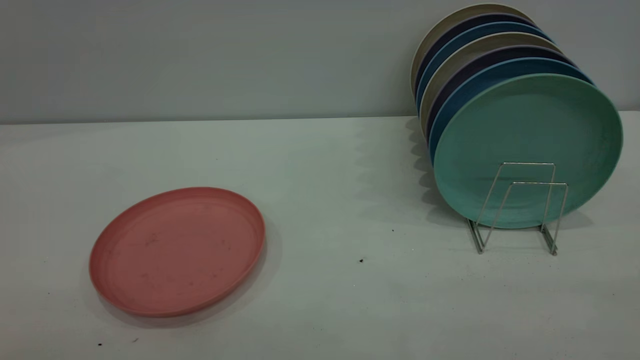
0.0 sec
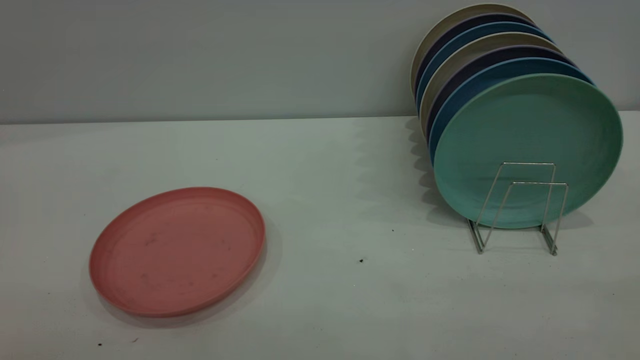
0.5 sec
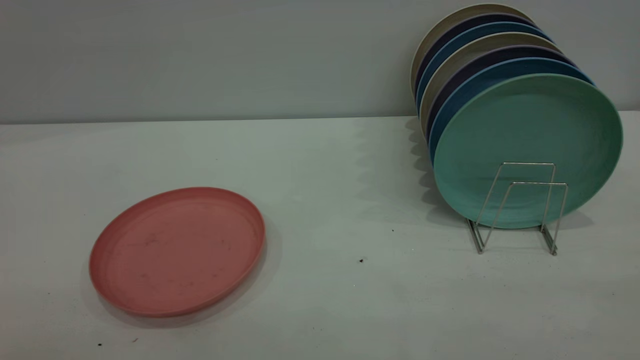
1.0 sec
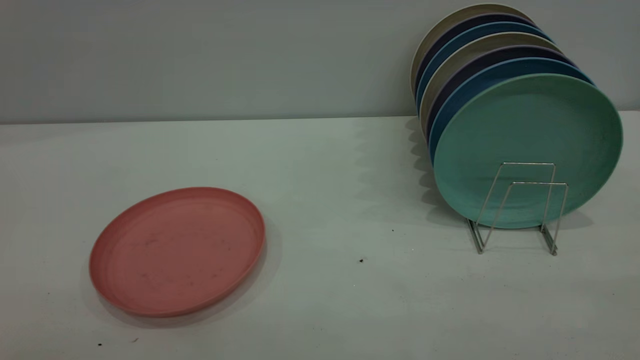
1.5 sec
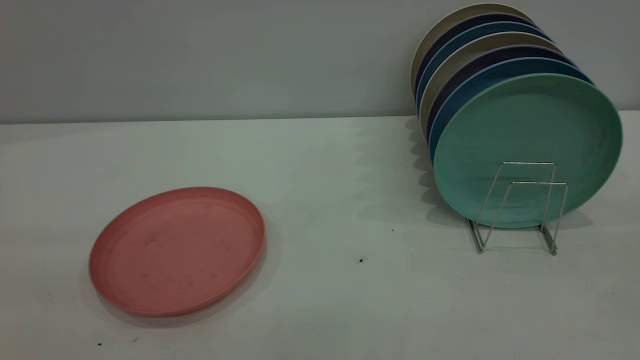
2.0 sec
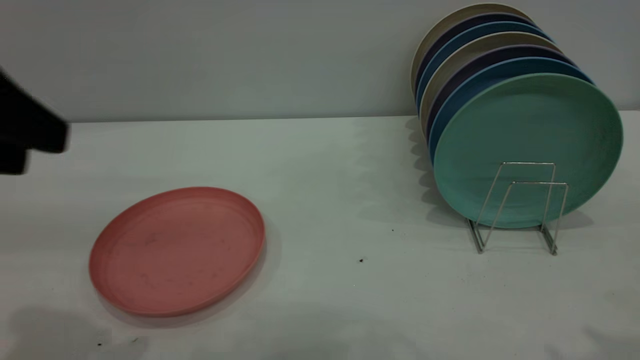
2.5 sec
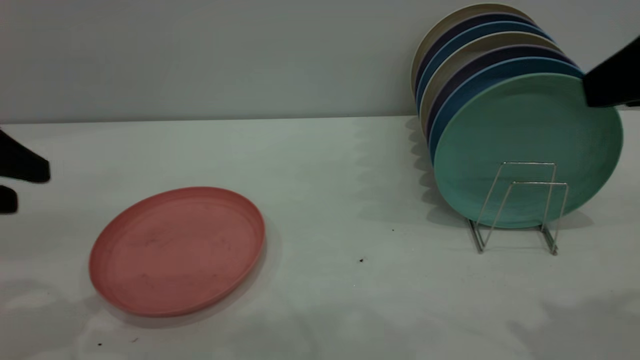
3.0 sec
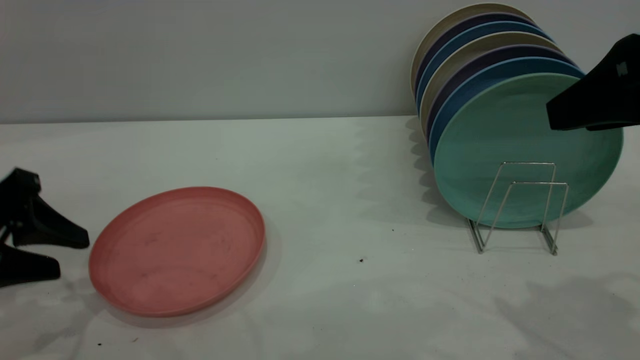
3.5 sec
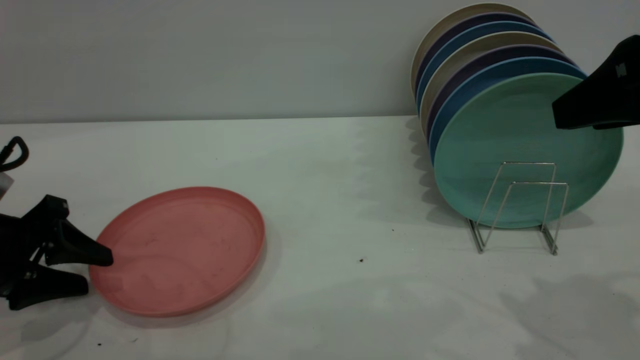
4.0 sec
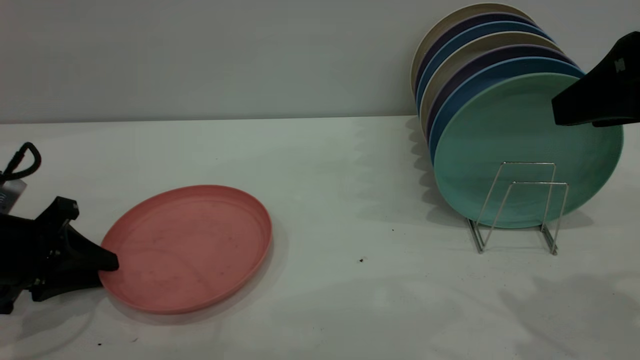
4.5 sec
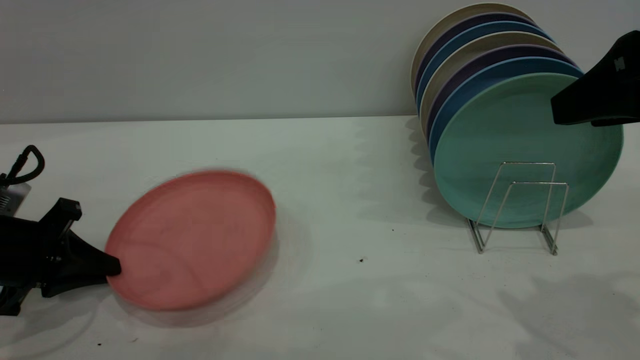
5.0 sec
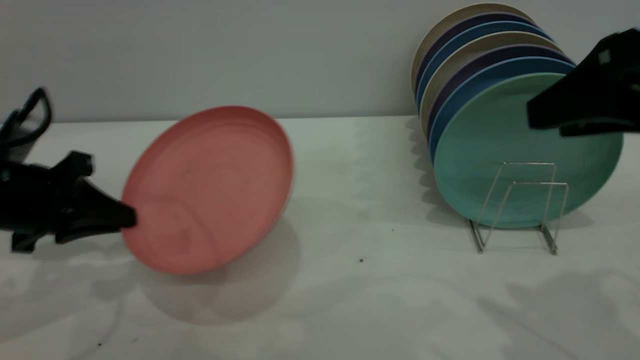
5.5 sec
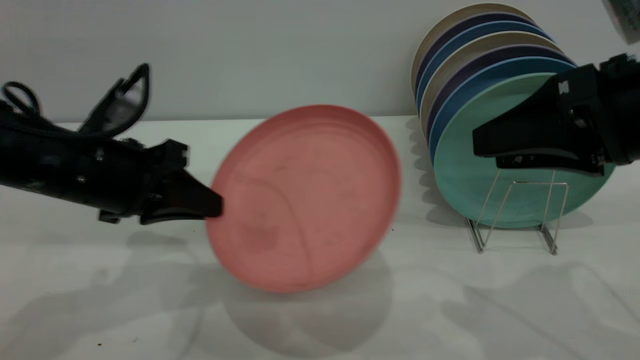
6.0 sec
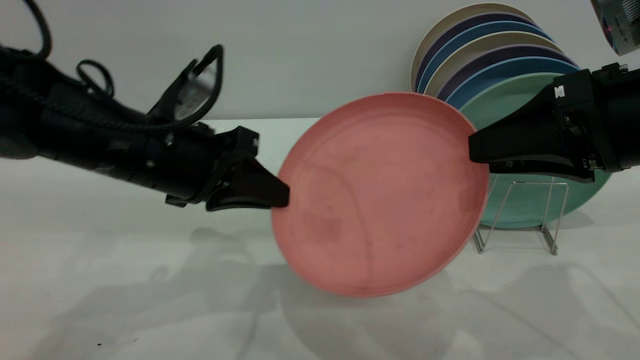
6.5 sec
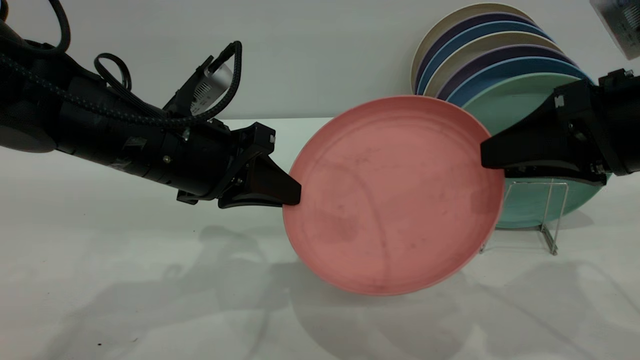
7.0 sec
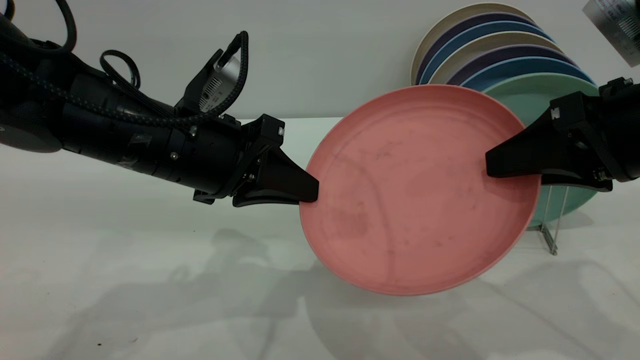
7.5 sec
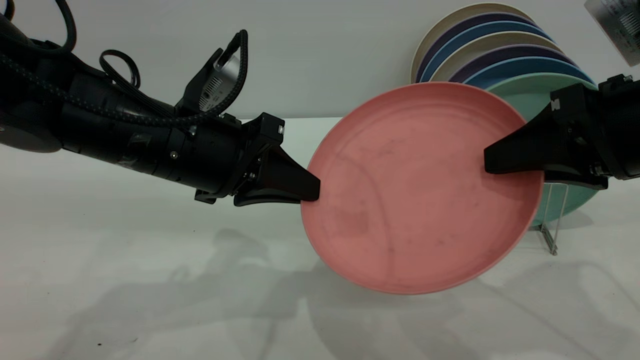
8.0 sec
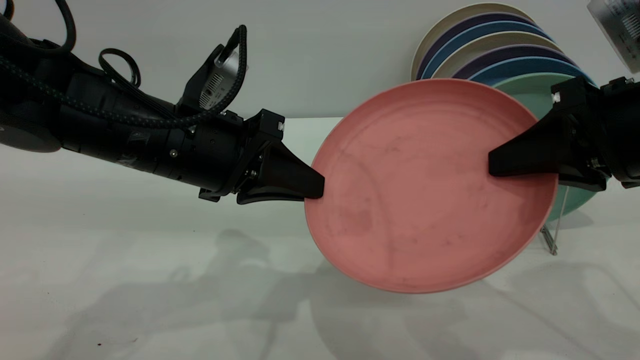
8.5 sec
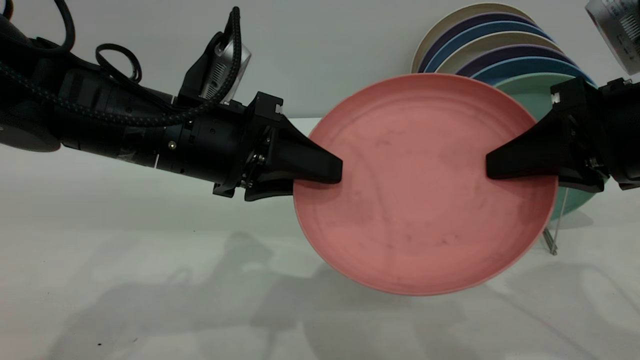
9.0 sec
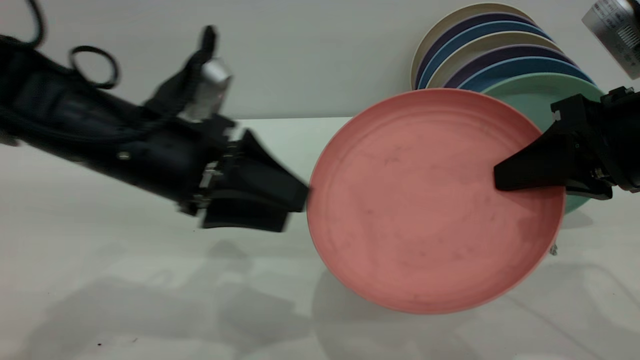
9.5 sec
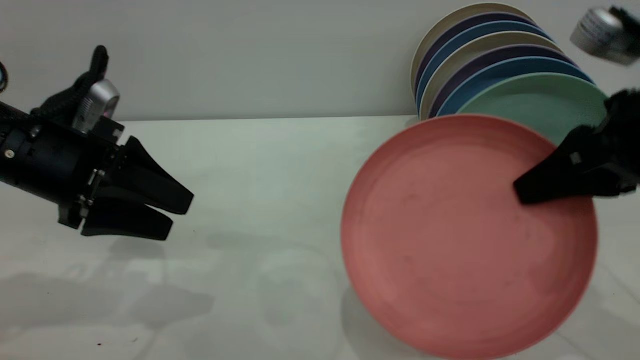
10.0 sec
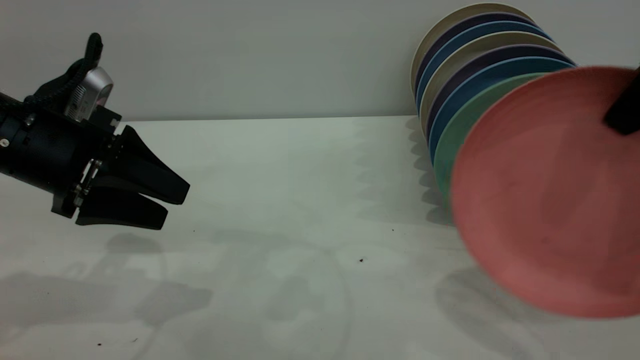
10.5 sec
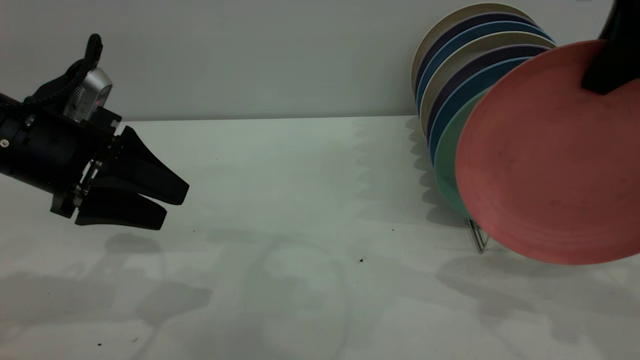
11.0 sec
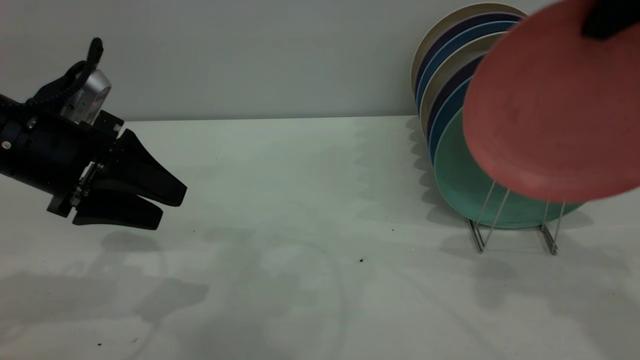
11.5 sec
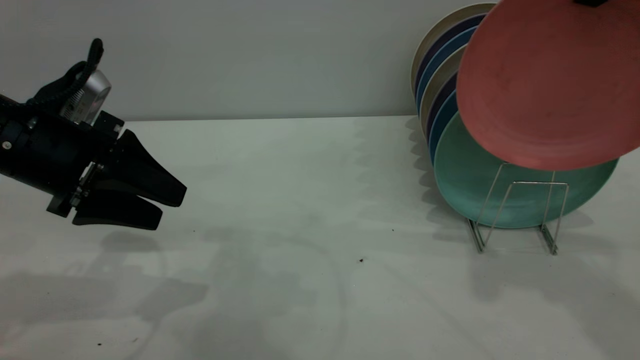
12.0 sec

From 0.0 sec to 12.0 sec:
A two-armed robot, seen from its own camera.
Task of the whole recording: the left gripper grasp the pink plate, the left gripper pass the pink plate to the right gripper, and the right gripper place the pink plate on the plate rack.
Step, from 0.0 sec to 5.0 sec: Pick up the plate with the left gripper.
Step, from 5.5 sec to 9.5 sec: Pass the plate from the left gripper to the right gripper.
From 2.0 sec to 4.0 sec: The right gripper heads forward and downward, covering some 20 cm; the left gripper moves downward and forward, roughly 35 cm.
From 4.0 sec to 6.0 sec: The left gripper shifts approximately 15 cm to the right and upward, and closes its fingers. The right gripper moves downward, some 5 cm.
From 6.0 sec to 8.0 sec: The left gripper heads to the right, covering some 10 cm.
From 8.0 sec to 10.0 sec: The left gripper goes some 10 cm to the left, and opens its fingers. The right gripper closes up.
From 10.0 sec to 12.0 sec: The right gripper moves upward and forward, approximately 15 cm.

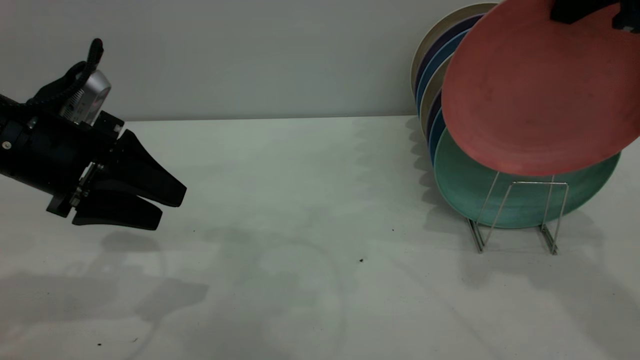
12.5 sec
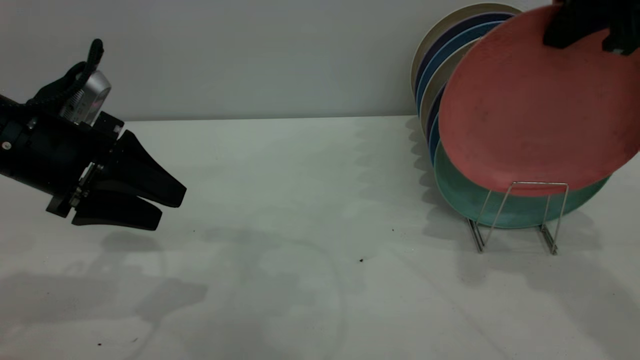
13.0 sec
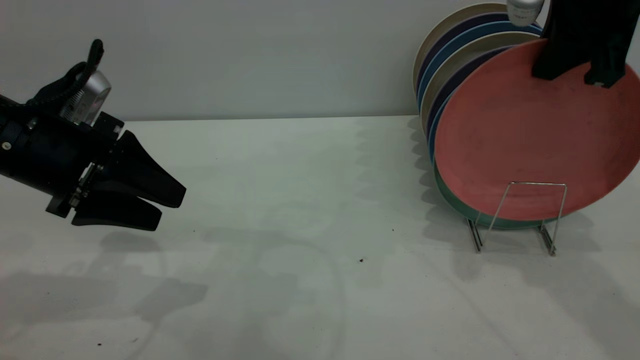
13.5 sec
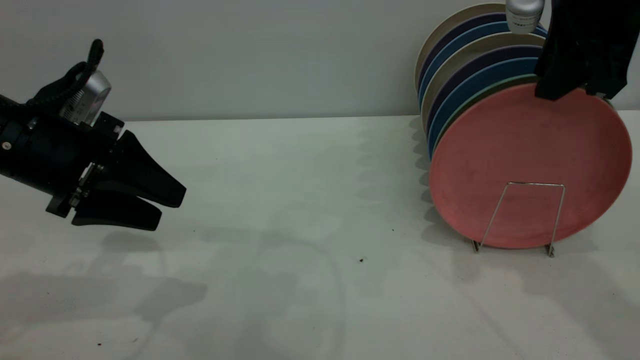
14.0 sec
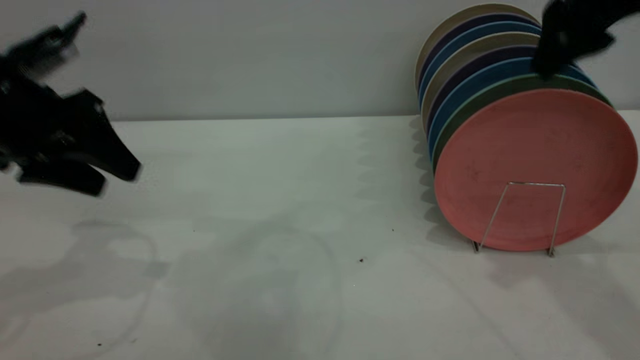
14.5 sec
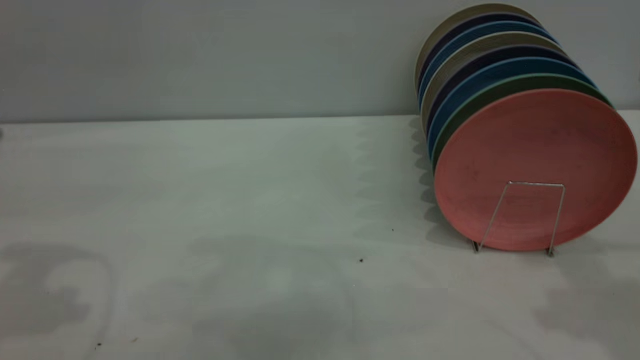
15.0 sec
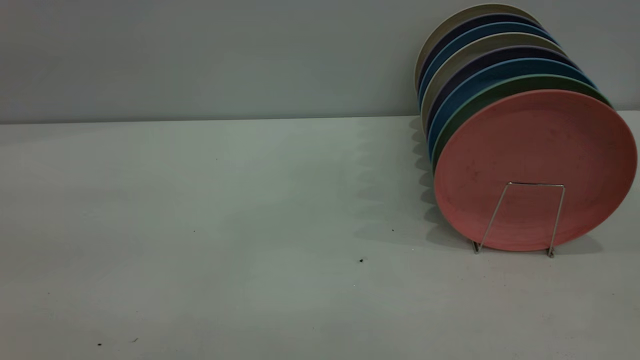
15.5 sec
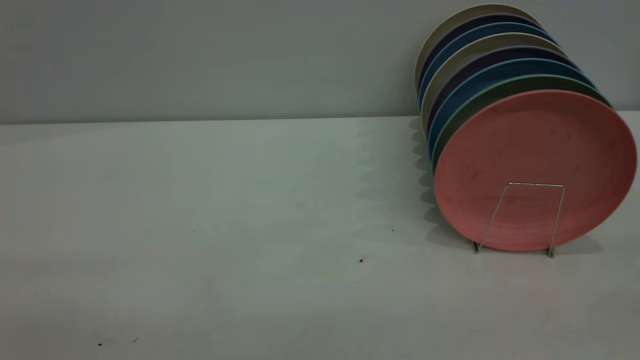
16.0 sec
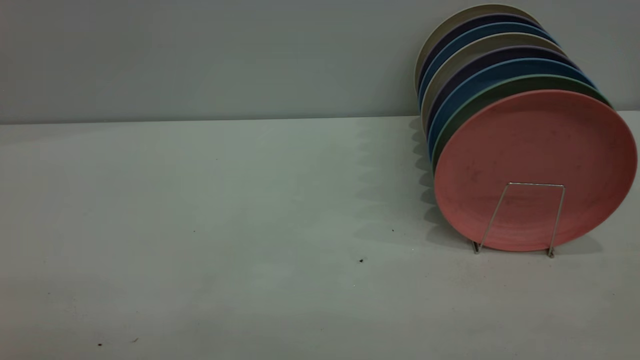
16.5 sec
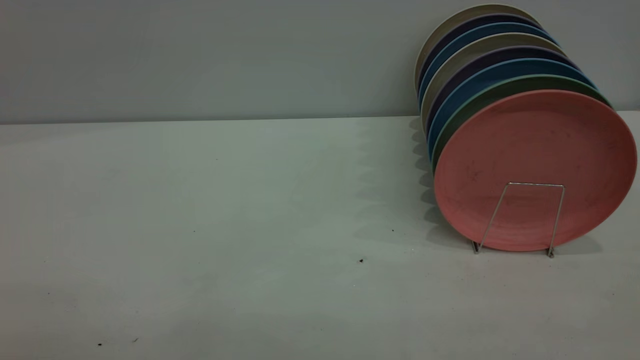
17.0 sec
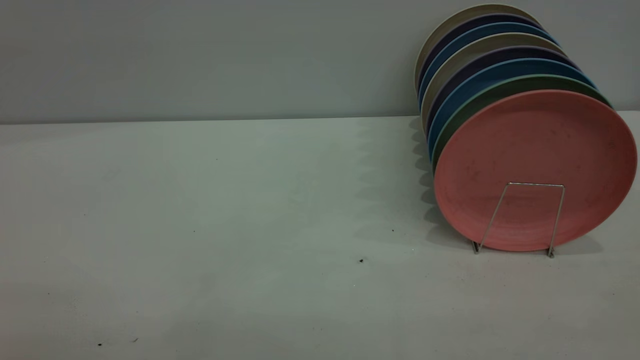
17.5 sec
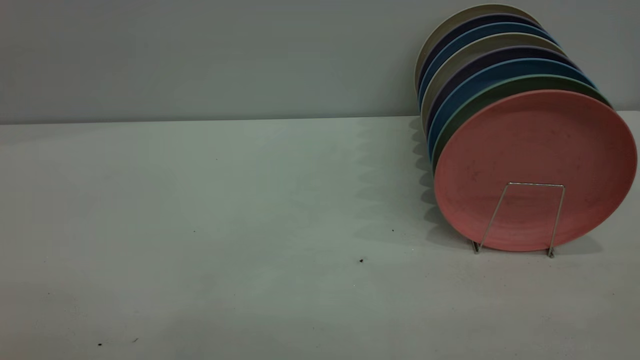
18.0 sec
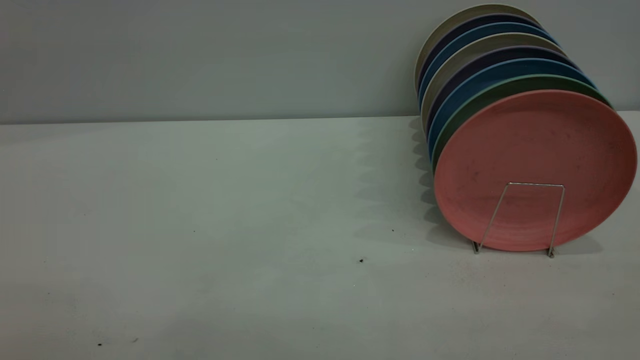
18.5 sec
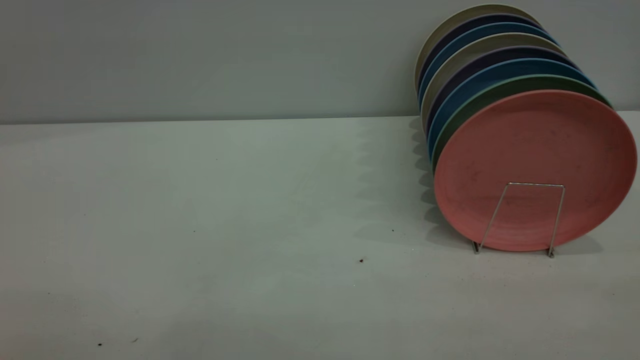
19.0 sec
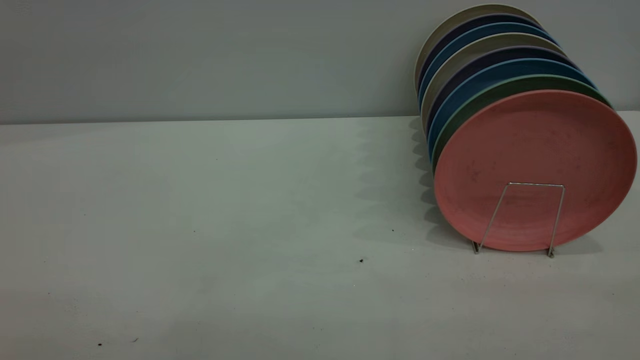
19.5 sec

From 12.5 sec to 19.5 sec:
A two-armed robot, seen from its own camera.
Task of the whole recording: the left gripper grasp the pink plate, the left gripper pass the pink plate to the right gripper, and the right gripper place the pink plate on the plate rack.
Step, from 12.5 sec to 14.5 sec: Place the plate on the shelf.
From 12.5 sec to 14.5 sec: The left gripper travels upward by approximately 5 cm. Meanwhile the right gripper opens.
From 14.5 sec to 16.0 sec: The left gripper heads backward and upward, covering roughly 35 cm. Meanwhile the right gripper travels backward by some 30 cm.
